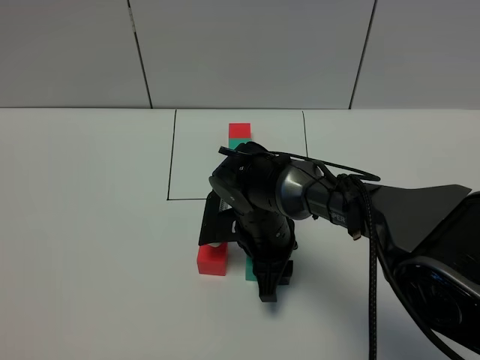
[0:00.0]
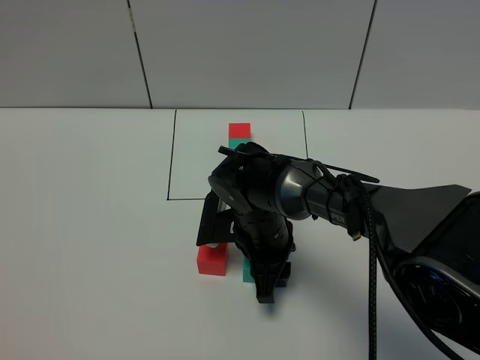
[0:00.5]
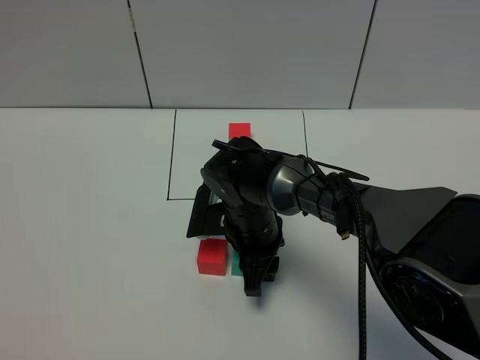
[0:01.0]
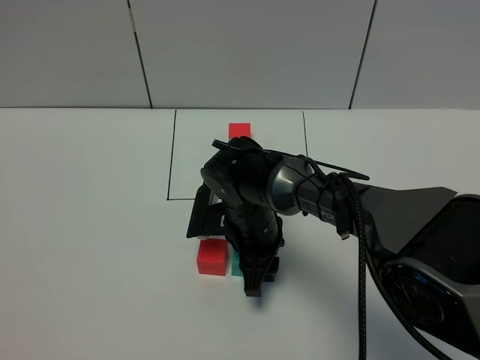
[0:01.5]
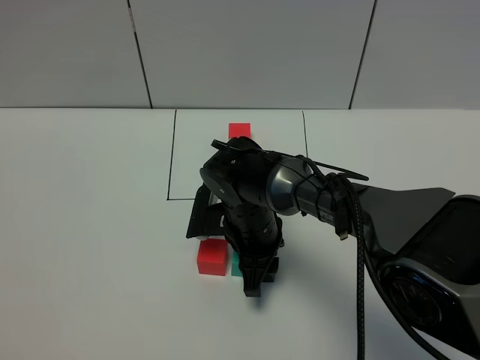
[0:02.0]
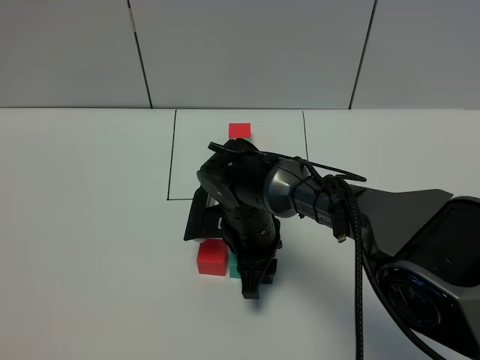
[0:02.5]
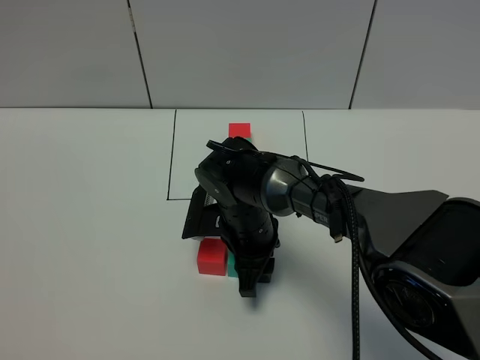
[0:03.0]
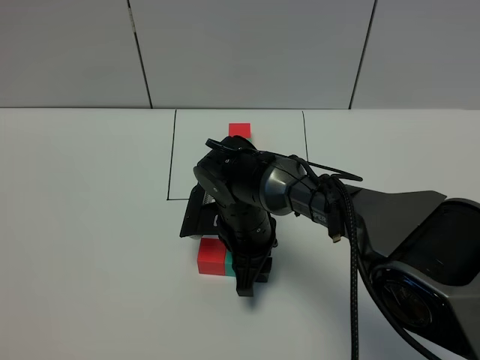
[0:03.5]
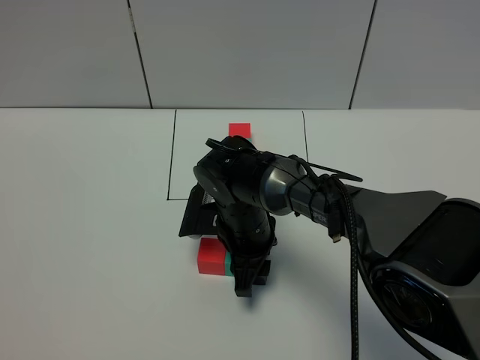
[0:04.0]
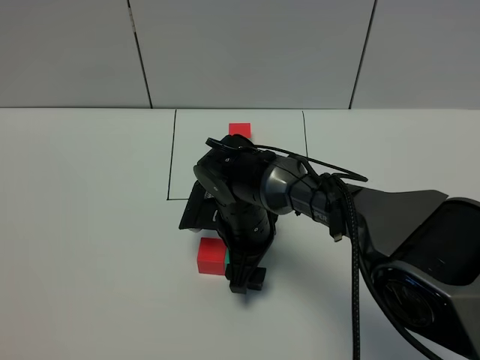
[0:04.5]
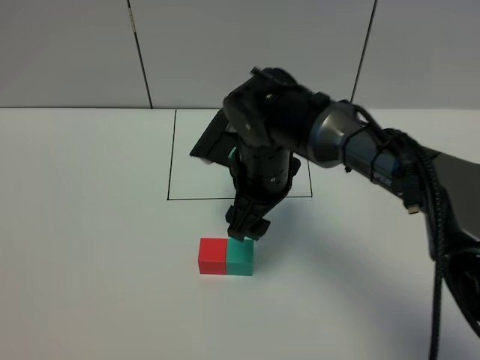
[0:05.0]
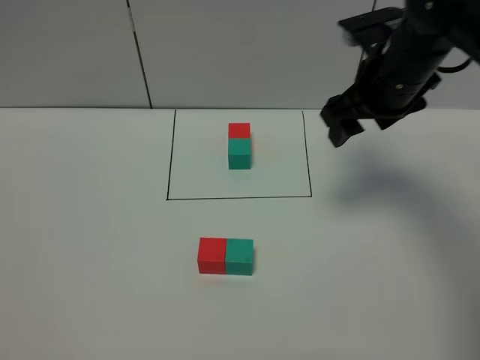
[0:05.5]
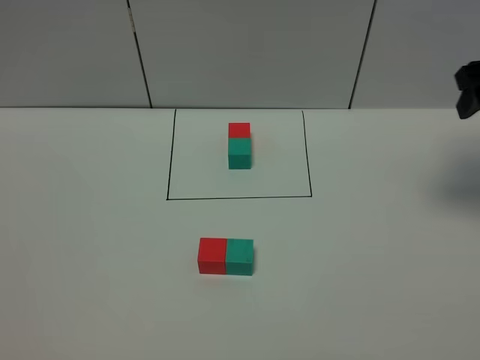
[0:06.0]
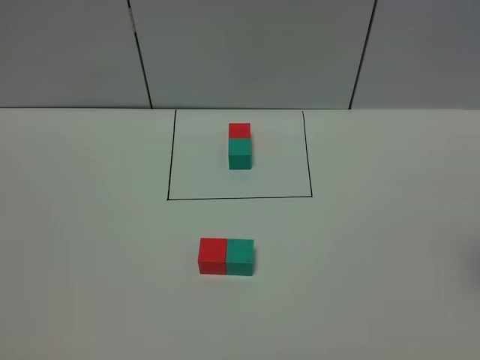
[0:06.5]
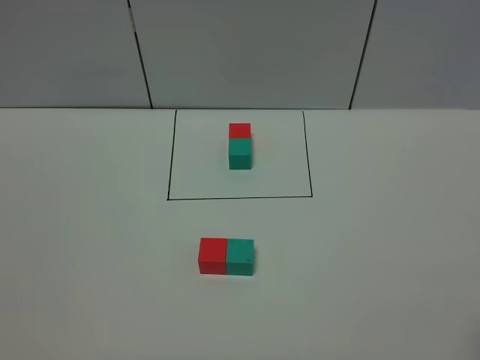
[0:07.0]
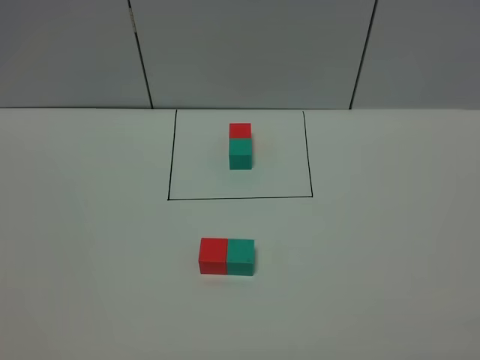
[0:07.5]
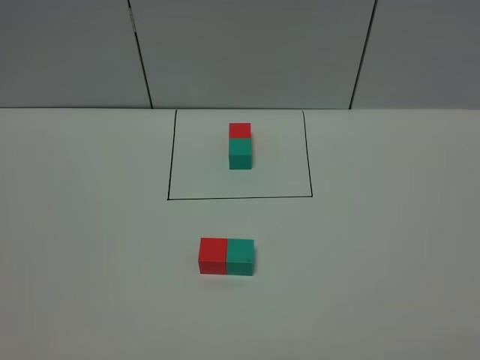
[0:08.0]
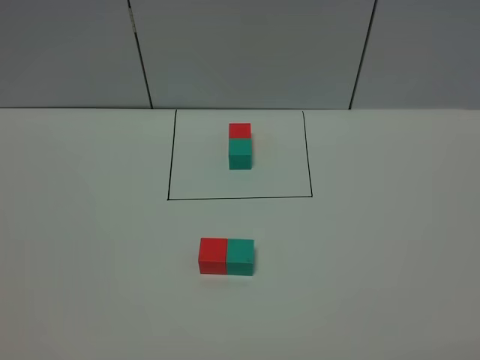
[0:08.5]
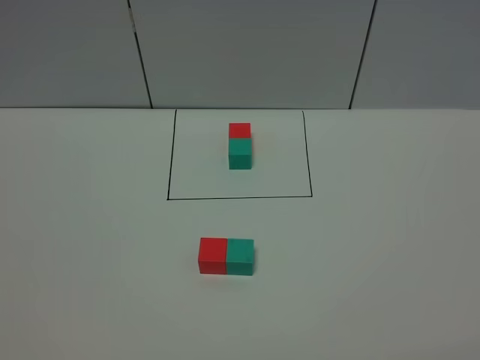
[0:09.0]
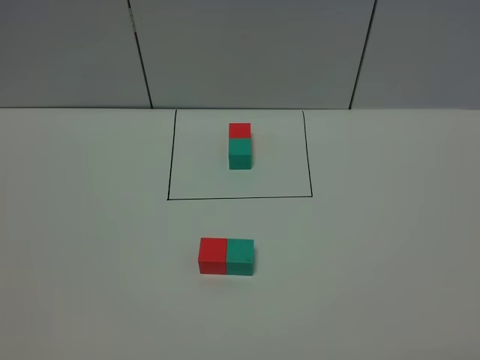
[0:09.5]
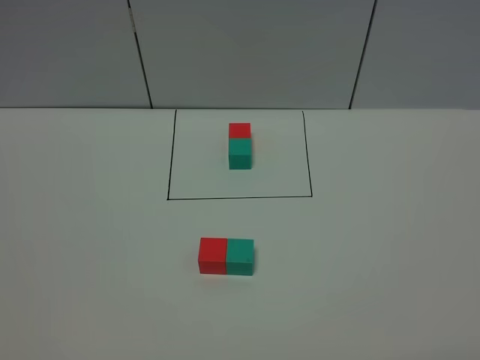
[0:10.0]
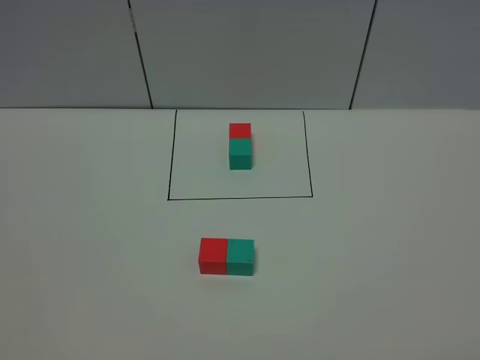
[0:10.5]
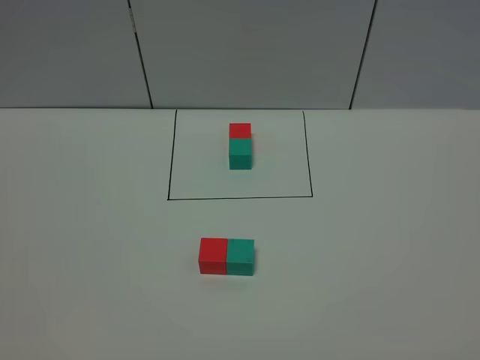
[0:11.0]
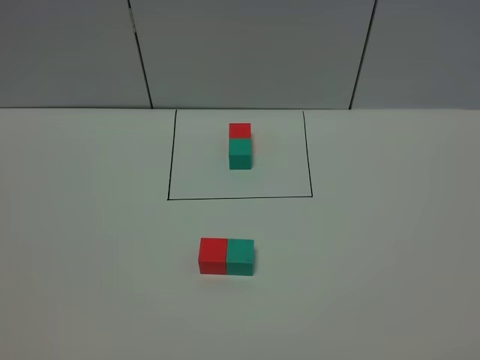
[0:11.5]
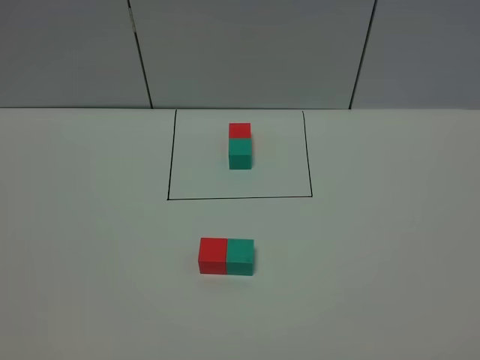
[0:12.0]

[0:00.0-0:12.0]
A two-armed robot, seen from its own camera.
Task of the whole recording: According to the building block template in front, assemble the scattered blocks together.
Step, 0:00.0 to 0:04.5: Put the green cube on the right of the red cube.
0:00.0 to 0:02.0: There are only small adjustments of the grippers.
0:02.0 to 0:04.0: Neither gripper changes place.
0:04.0 to 0:06.0: The right gripper is displaced to the right and upward by about 40 cm, and opens its fingers.
0:06.0 to 0:08.0: The right gripper travels backward by approximately 35 cm.

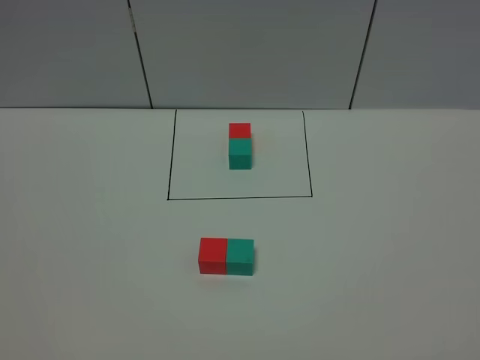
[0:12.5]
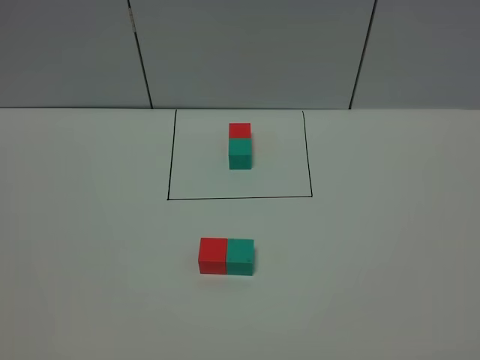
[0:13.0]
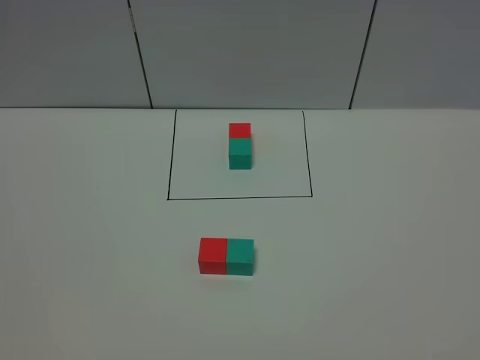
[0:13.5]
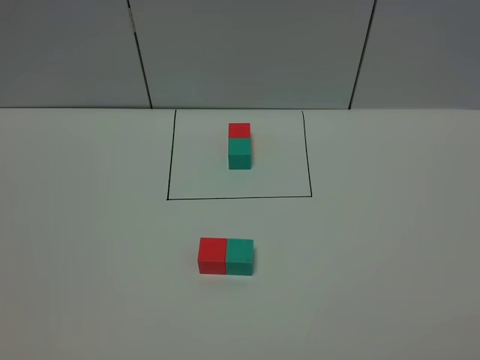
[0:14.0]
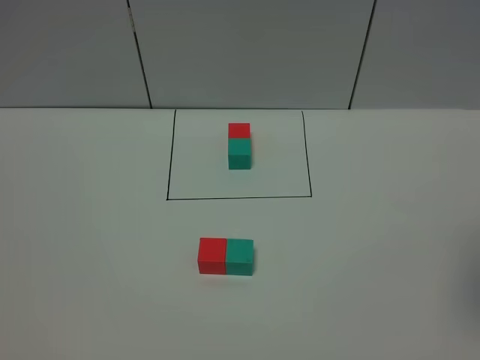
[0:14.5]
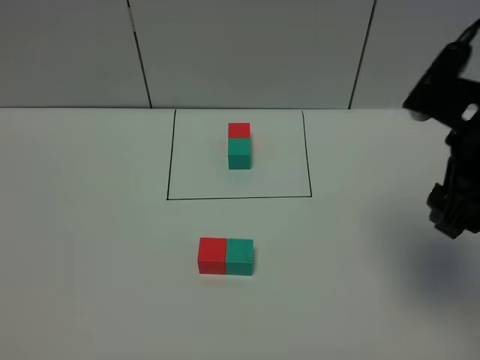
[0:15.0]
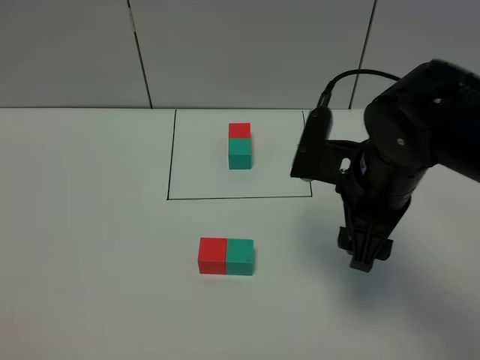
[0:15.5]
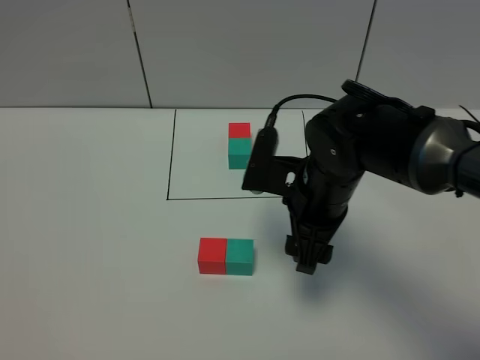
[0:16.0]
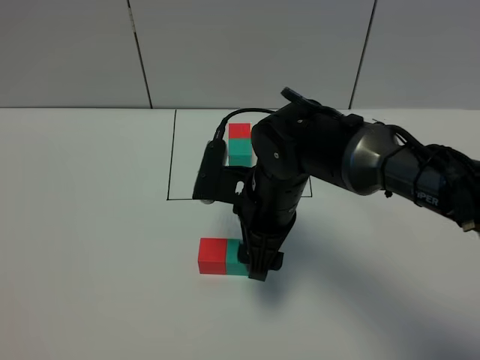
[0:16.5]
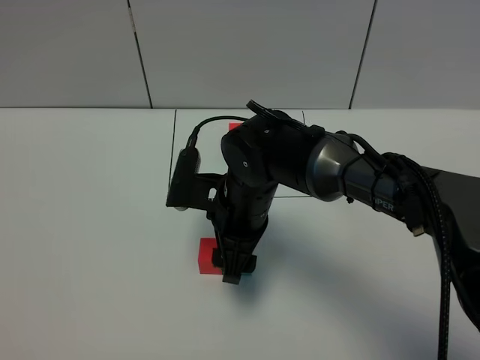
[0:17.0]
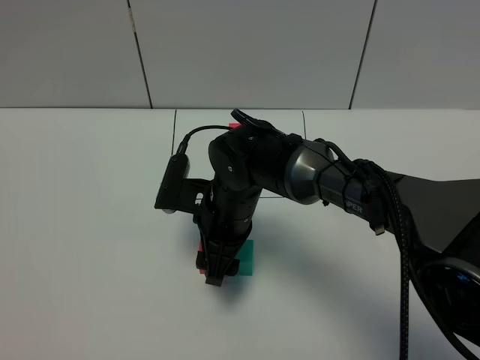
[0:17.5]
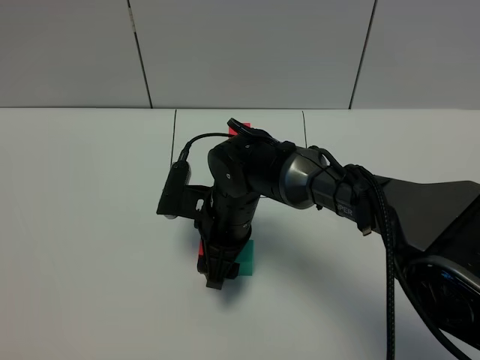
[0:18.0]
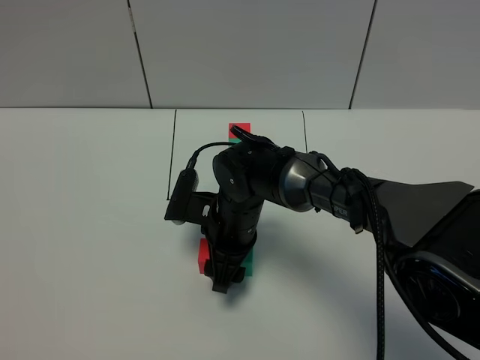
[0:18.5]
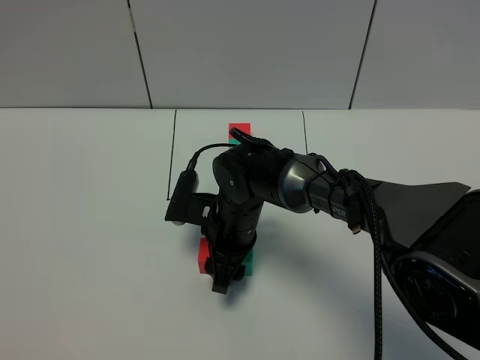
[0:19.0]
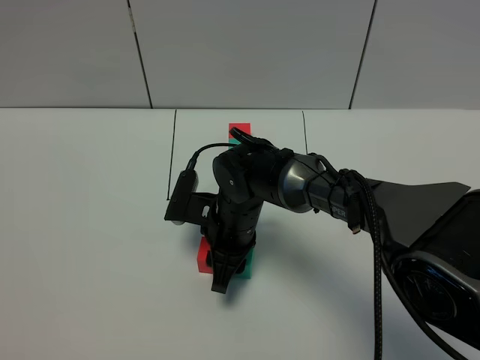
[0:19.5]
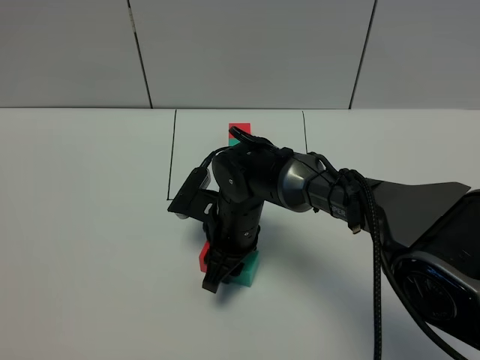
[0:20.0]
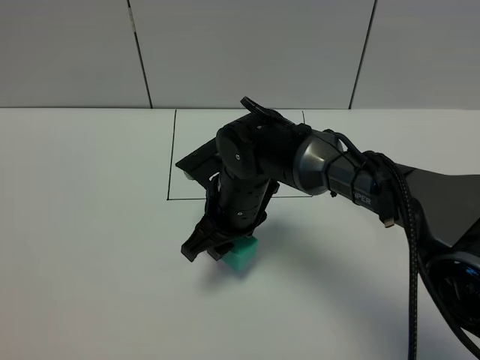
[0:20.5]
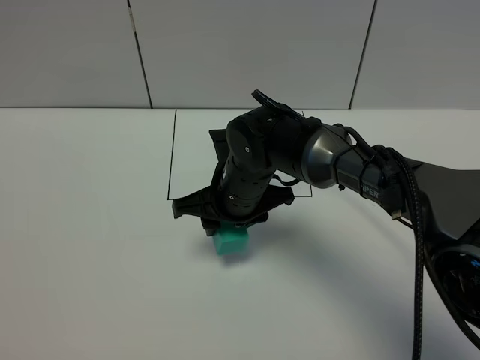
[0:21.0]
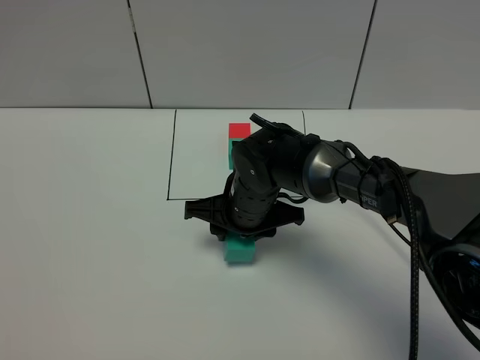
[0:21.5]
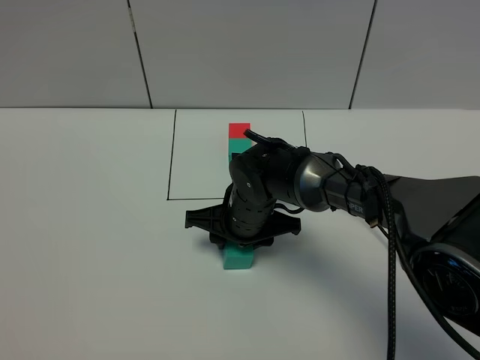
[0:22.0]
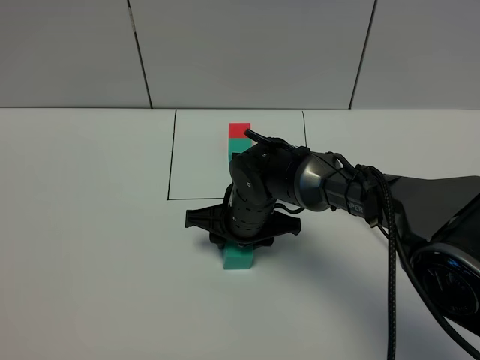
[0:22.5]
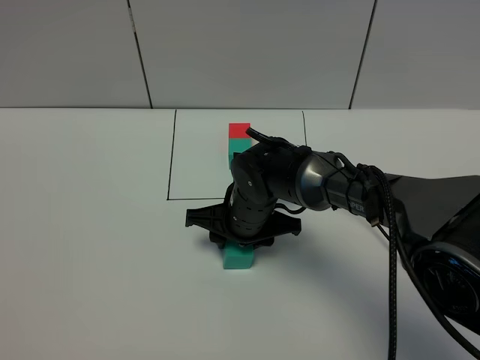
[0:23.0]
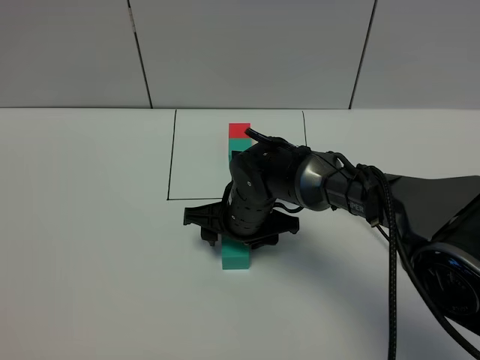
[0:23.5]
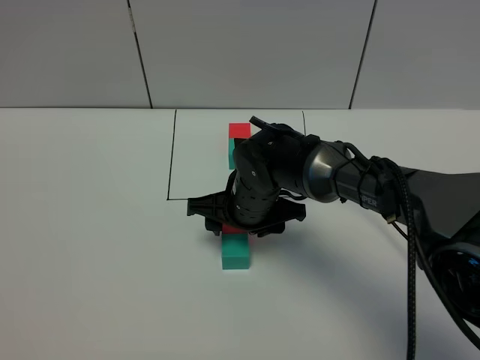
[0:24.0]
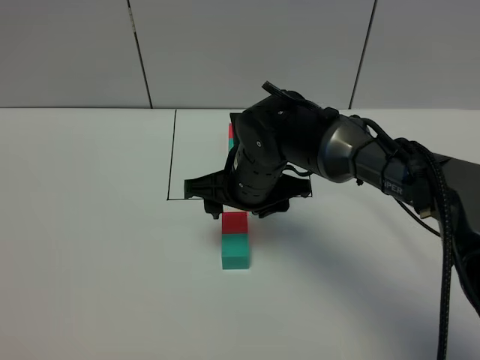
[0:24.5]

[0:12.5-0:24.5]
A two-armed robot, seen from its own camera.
Task of the whole recording: According to the building block template in front, assemble the scattered blocks together.
Step, 0:12.5 to 0:24.0: Adjust the pose of the building blocks.
0:14.5 to 0:16.5: The right gripper is displaced to the left, downward and forward by some 35 cm.
0:16.5 to 0:18.5: The right gripper moves downward, some 10 cm.
0:18.5 to 0:20.5: The right gripper closes up.
0:20.5 to 0:22.5: The right gripper moves some 5 cm.
0:22.5 to 0:24.5: The right gripper travels upward by about 10 cm, and opens its fingers.

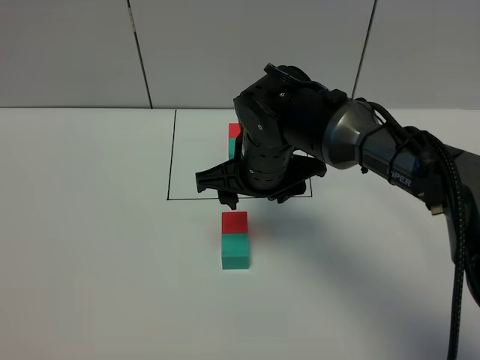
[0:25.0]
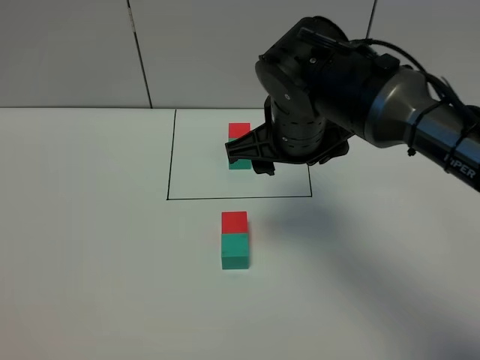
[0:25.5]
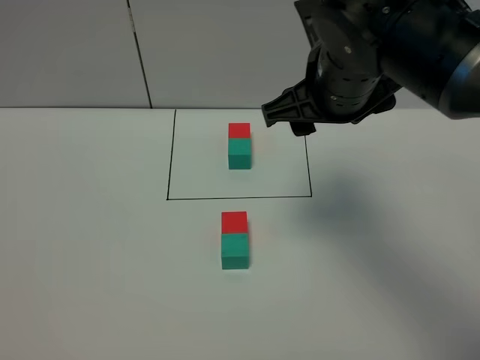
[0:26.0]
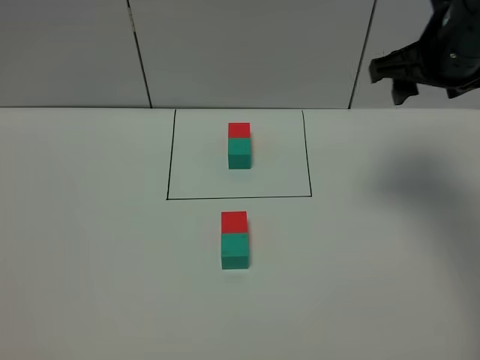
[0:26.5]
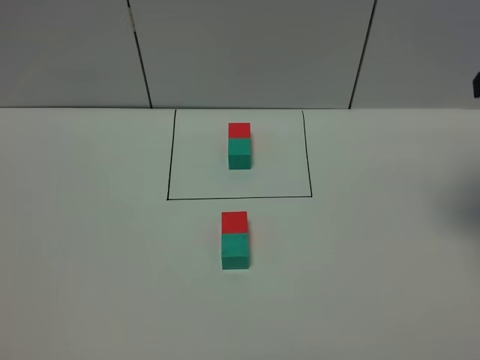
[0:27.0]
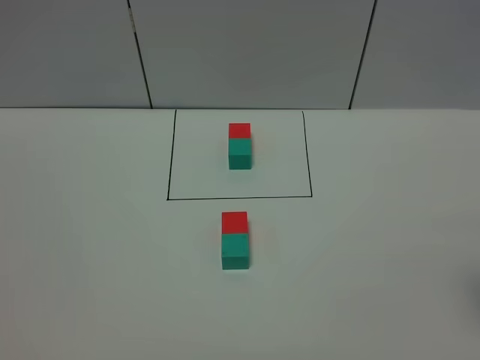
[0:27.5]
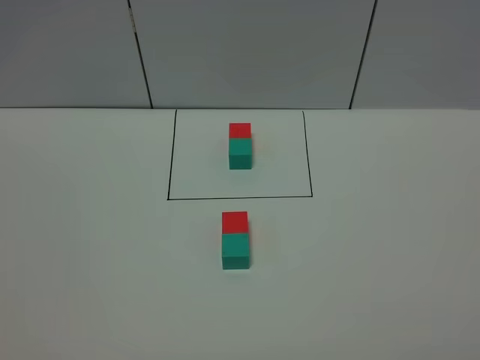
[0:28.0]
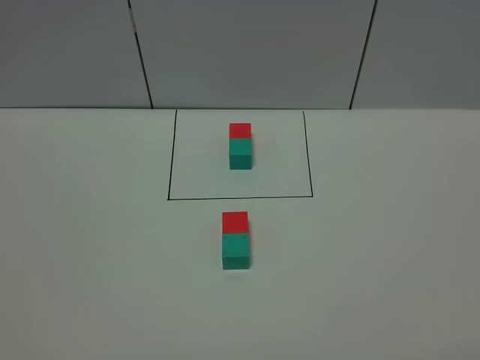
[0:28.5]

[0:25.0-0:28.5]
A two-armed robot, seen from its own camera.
Task of the whole recording: According to the building block template in front, assemble the scattered blocks together.
0:25.0 to 0:27.0: The right gripper is displaced to the right and upward by approximately 30 cm.
0:27.0 to 0:28.5: The right gripper is displaced backward by some 30 cm.
